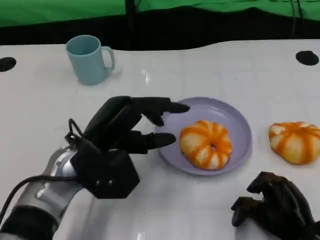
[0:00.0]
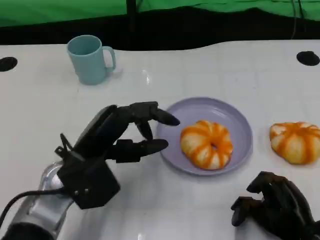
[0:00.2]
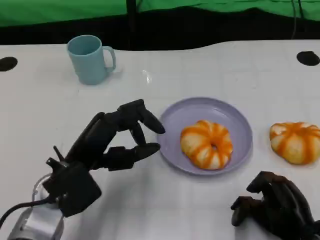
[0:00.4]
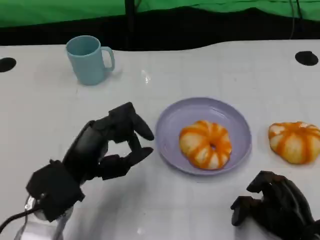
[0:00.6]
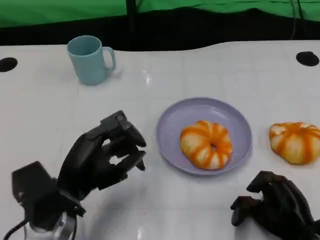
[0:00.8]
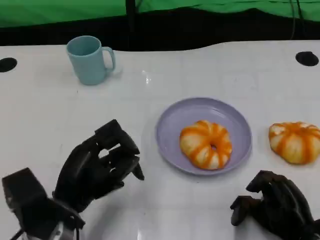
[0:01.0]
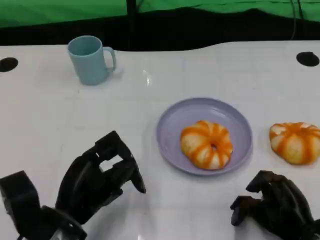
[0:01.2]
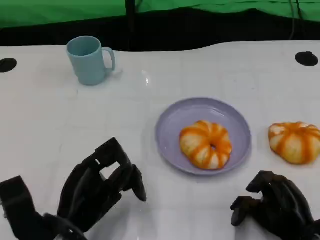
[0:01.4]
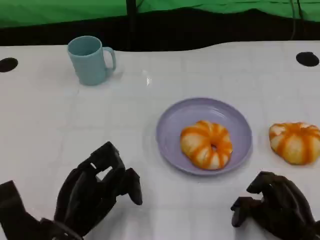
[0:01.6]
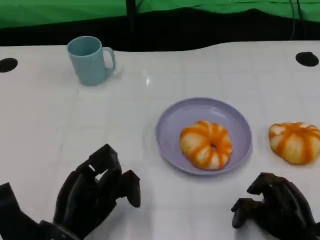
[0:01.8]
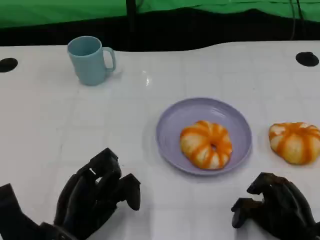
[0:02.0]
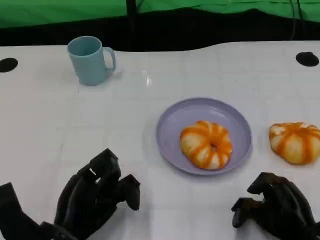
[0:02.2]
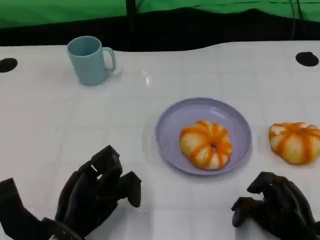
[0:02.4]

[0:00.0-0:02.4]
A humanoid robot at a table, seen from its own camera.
Task of the whole recording: Grasp the bread from the table and place it into the plate.
0:00.0 to 0:01.2: The left hand heads backward and downward, covering roughly 10 cm.
0:01.2 to 0:02.4: The hands make only small movements.

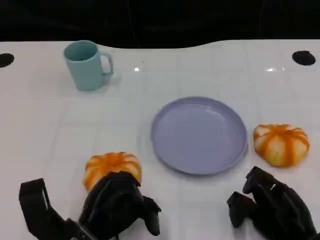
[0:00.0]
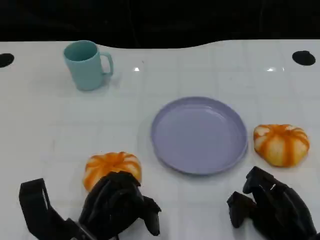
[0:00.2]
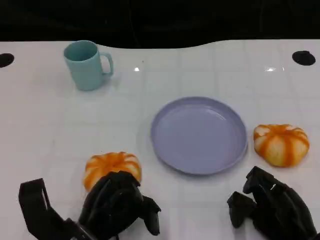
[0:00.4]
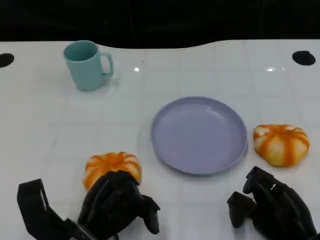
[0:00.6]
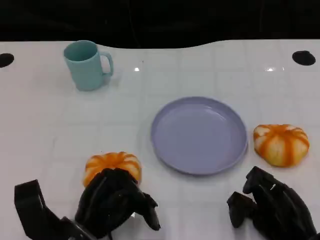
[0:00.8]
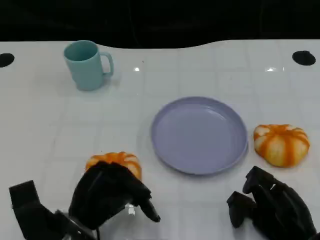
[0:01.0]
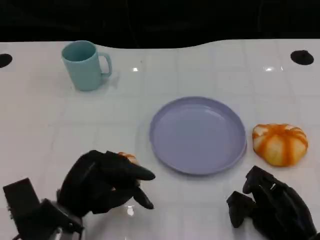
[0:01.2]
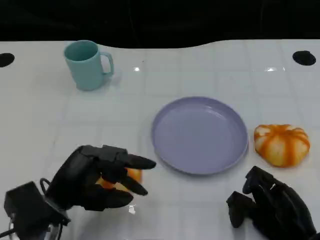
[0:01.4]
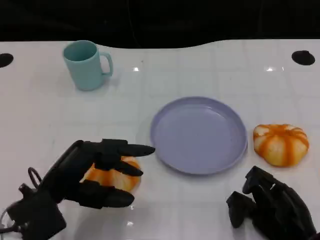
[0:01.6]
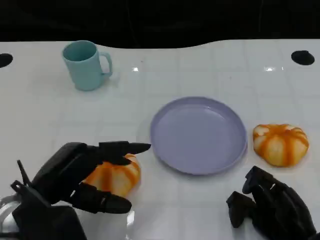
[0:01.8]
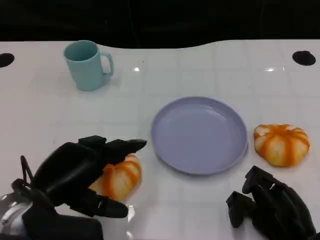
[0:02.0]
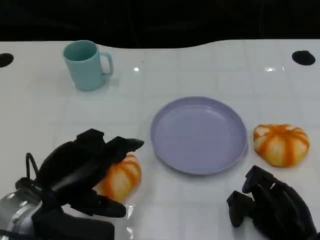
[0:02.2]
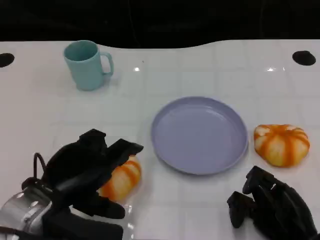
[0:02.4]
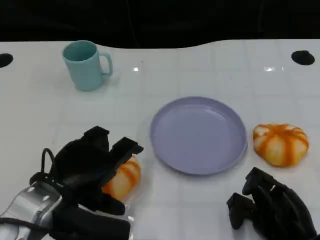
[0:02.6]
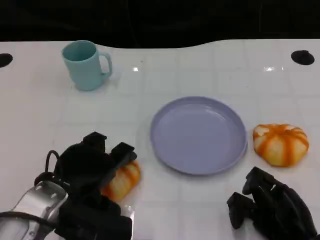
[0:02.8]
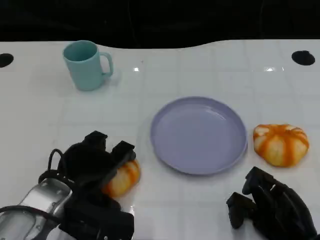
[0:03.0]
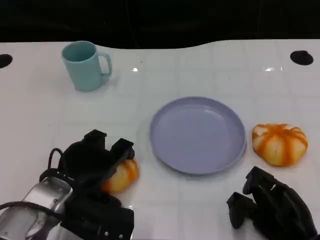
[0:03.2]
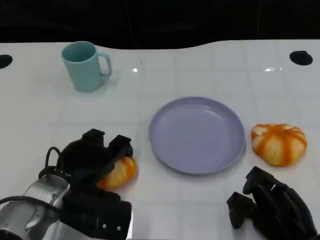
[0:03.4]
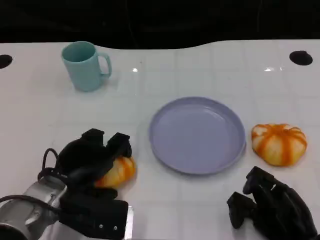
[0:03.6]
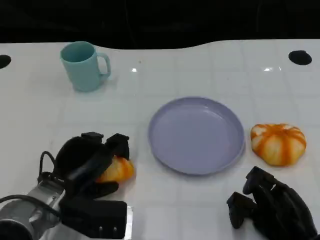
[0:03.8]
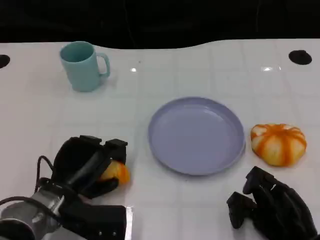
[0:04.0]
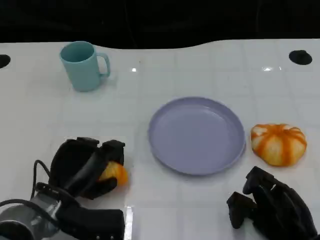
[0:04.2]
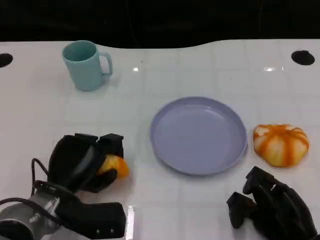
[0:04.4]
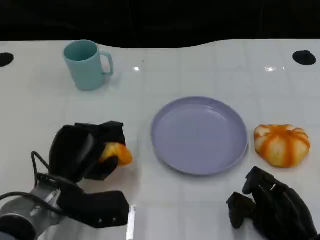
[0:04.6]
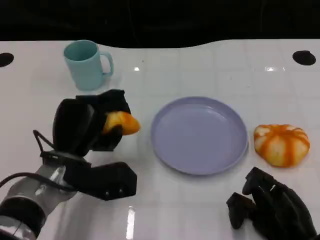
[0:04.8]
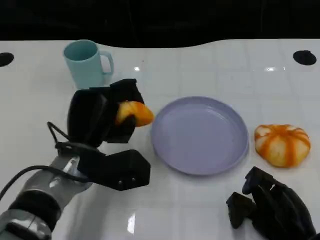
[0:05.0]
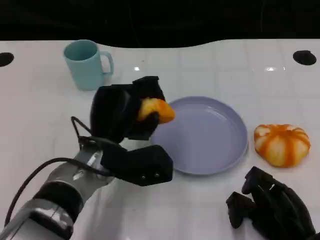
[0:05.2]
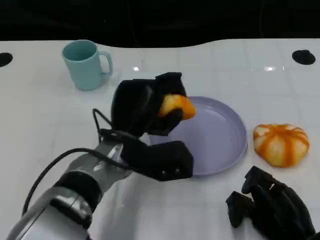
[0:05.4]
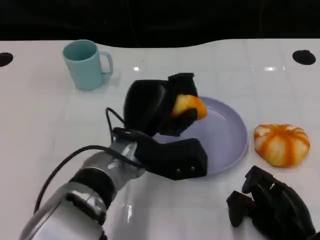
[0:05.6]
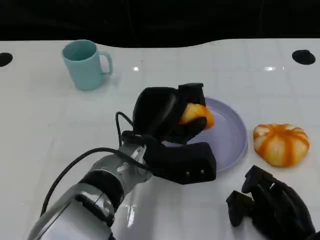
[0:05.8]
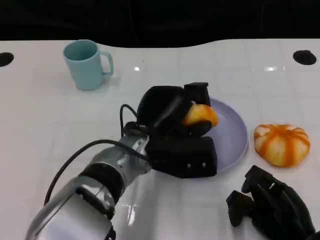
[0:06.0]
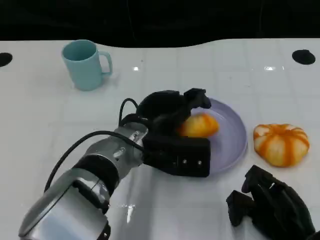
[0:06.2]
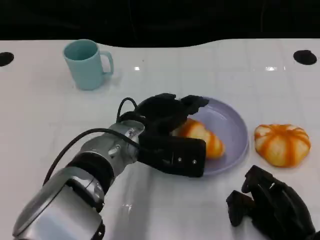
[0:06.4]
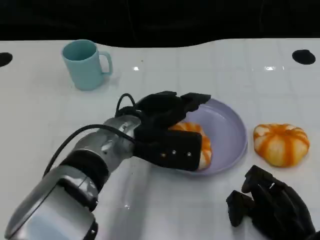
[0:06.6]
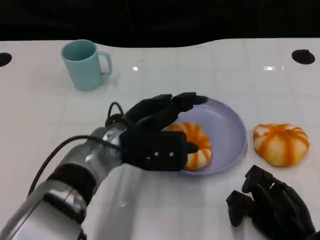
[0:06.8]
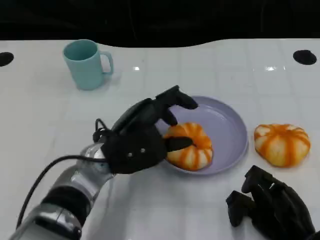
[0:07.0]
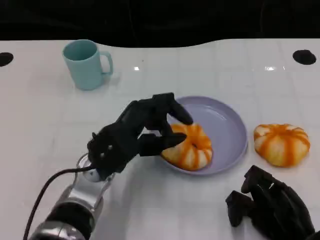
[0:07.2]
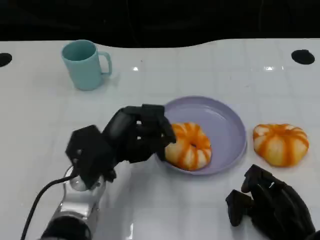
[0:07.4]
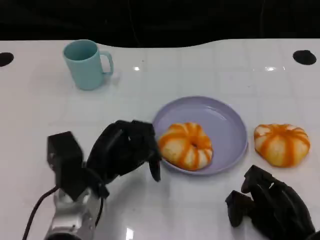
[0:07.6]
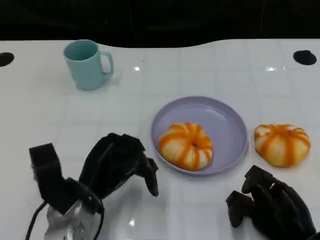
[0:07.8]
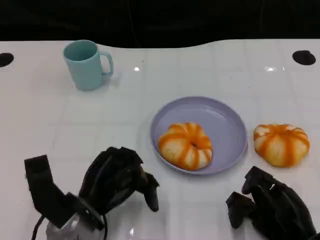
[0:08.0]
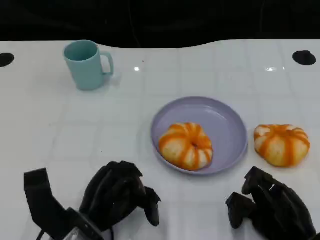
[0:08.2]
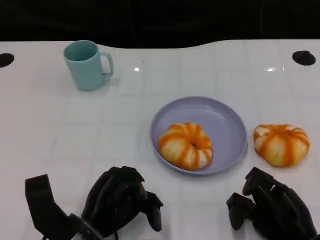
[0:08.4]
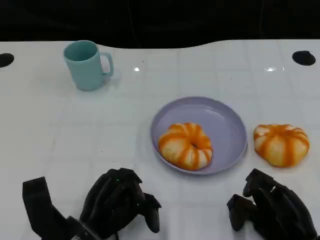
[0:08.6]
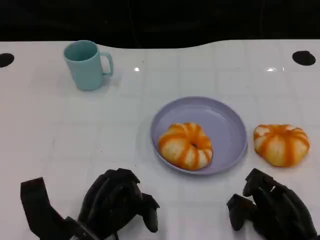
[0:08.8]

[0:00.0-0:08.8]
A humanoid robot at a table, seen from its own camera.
Task of the whole recording: Grasp the bread from the table and place it into the plate.
0:00.0 to 0:01.4: The left hand ends up roughly 5 cm from where it was.
0:04.4 to 0:05.8: The left hand goes about 15 cm to the right and upward.
0:05.8 to 0:07.4: The left hand moves to the left, roughly 10 cm.
0:07.4 to 0:08.8: The left hand heads backward and downward, covering some 10 cm.

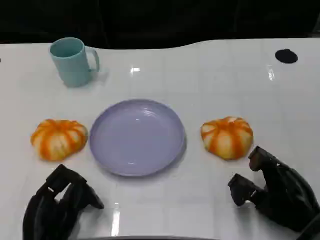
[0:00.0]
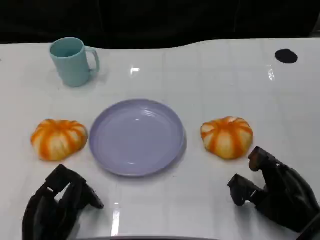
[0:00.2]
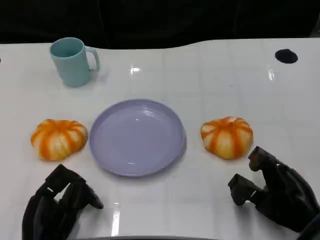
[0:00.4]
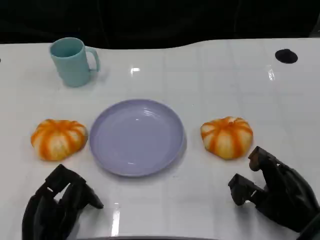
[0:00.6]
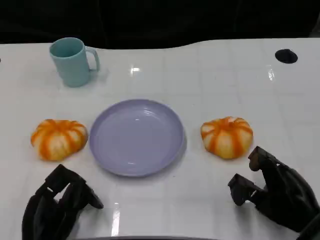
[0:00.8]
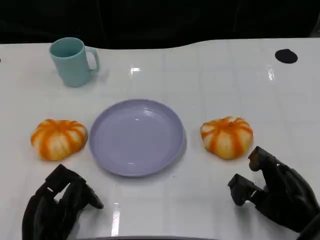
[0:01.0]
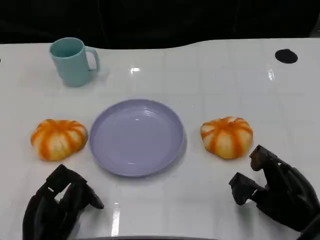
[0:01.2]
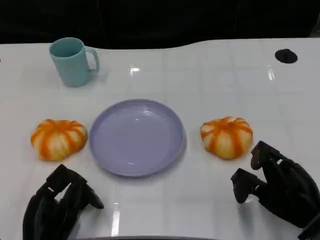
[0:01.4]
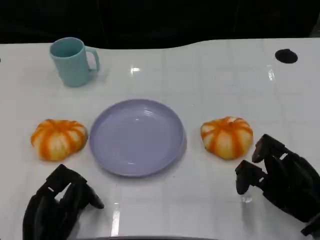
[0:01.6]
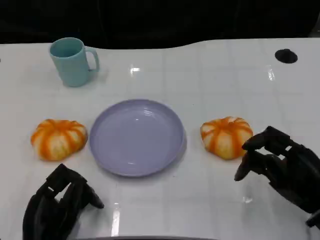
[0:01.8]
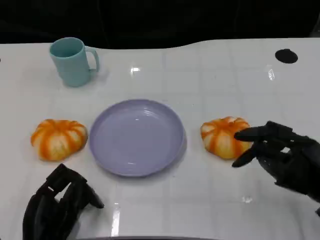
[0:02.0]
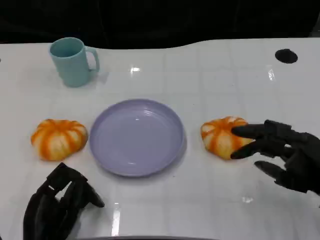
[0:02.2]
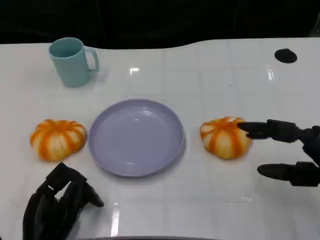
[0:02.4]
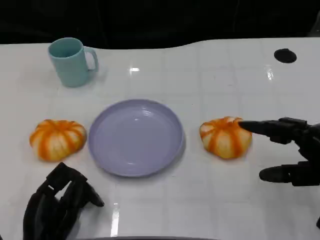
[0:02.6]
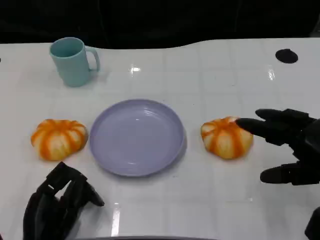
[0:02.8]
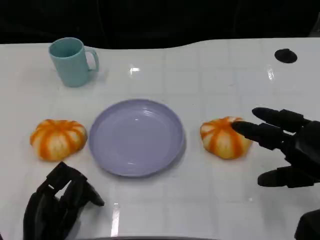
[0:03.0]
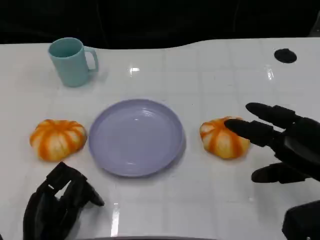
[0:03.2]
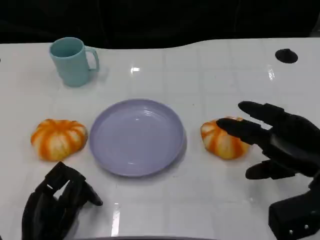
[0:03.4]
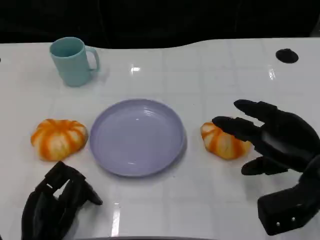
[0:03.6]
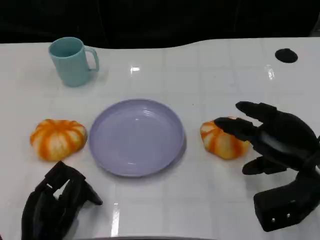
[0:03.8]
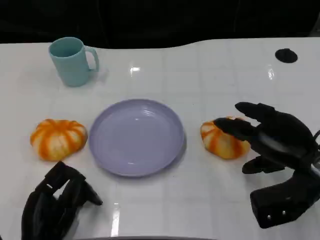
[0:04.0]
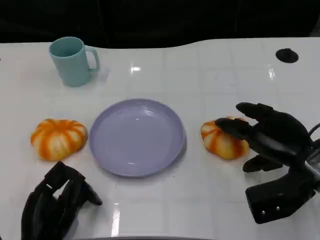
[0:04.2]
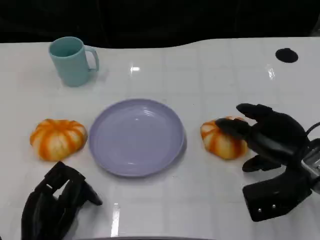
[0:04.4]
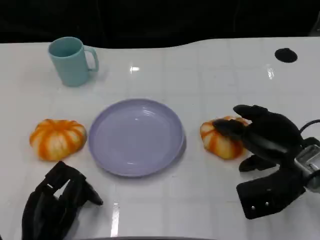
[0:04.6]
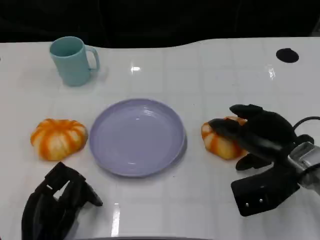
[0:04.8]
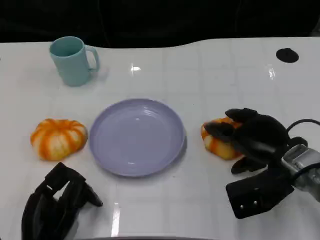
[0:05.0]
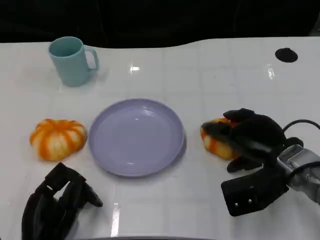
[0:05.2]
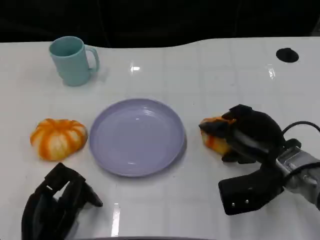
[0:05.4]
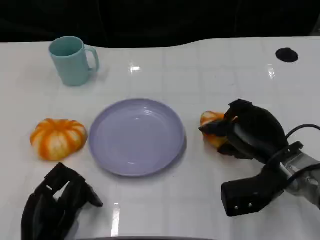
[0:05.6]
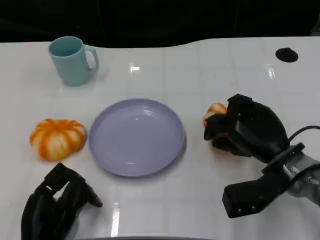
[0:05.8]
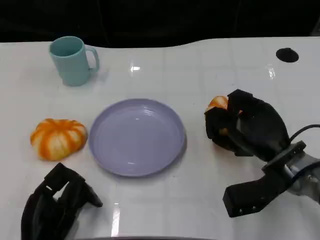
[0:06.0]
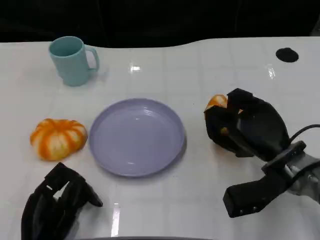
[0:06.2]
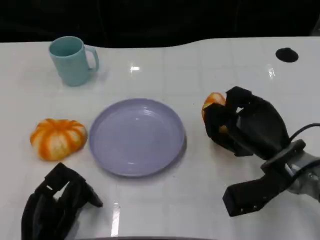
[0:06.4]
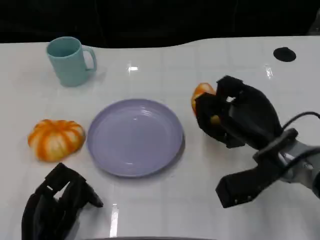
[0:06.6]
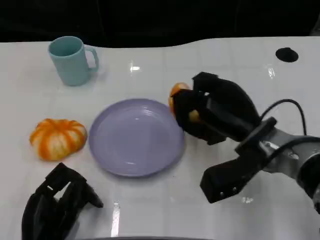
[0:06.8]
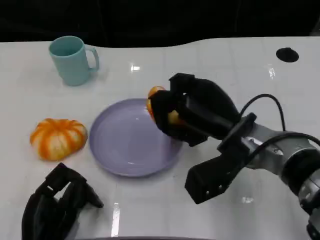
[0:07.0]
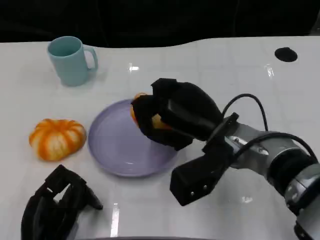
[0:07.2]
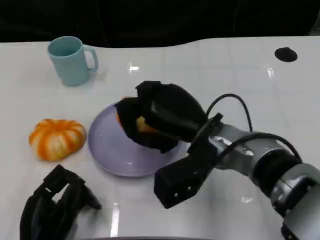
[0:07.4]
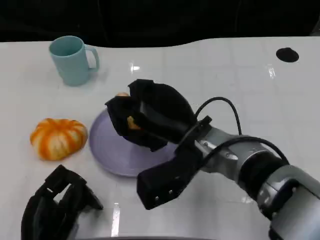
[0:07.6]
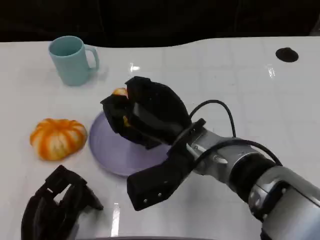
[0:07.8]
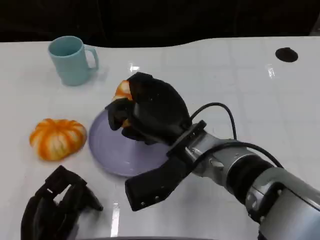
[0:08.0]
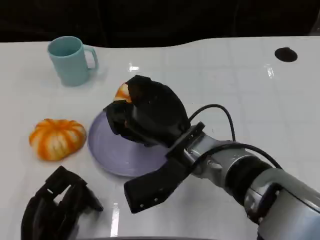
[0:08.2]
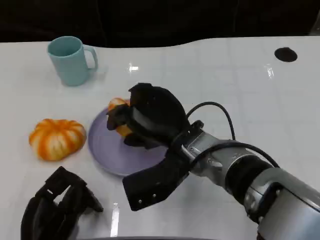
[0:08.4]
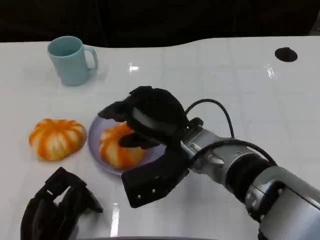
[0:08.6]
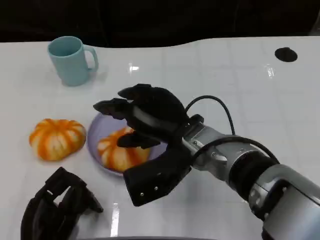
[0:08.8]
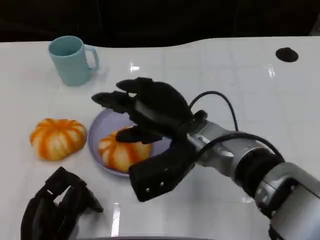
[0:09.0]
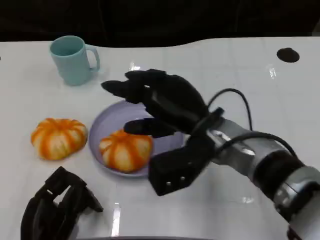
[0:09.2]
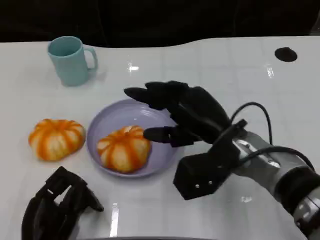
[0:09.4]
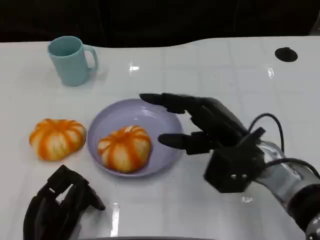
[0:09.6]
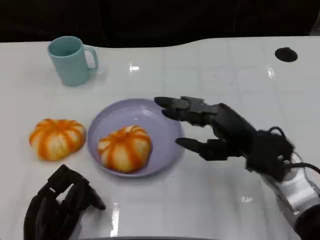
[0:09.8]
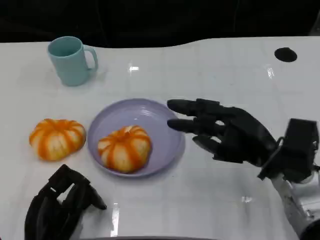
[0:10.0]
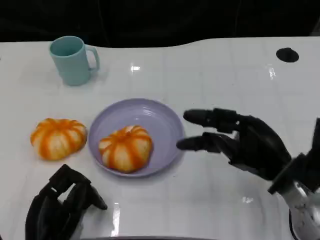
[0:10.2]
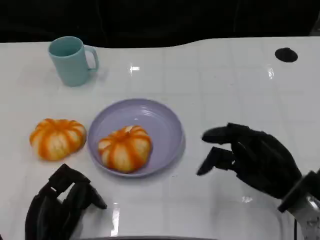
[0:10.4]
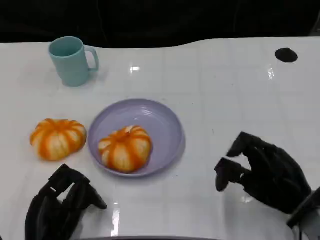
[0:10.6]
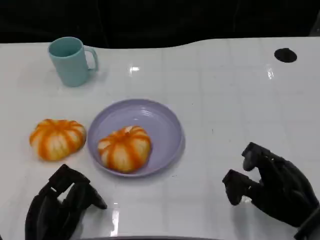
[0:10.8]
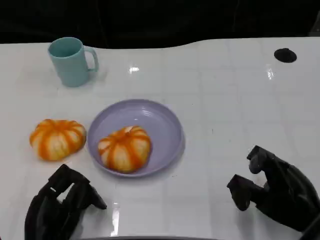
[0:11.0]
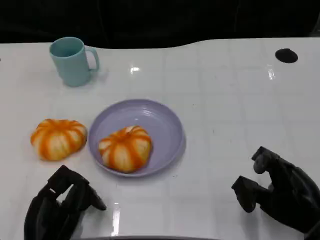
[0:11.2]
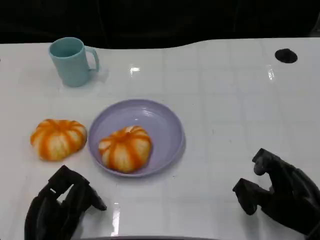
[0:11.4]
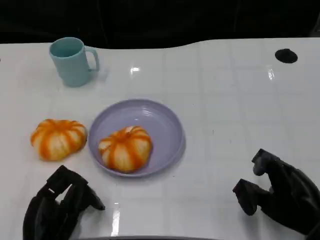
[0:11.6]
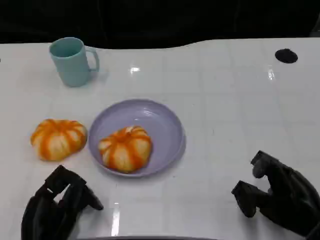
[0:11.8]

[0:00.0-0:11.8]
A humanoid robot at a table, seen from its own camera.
Task of the whole recording: Grasp the bread from the table and place it into the plate.
0:00.0 to 0:01.4: The hands move only a little.
0:01.4 to 0:03.0: The right hand goes roughly 10 cm upward.
0:03.0 to 0:04.4: The right hand goes some 10 cm forward and to the left.
0:06.0 to 0:07.4: The right hand moves to the left and upward, some 15 cm.
0:08.8 to 0:10.4: The right hand shifts about 15 cm to the right.
0:10.4 to 0:11.8: The right hand ends up roughly 5 cm from where it was.
